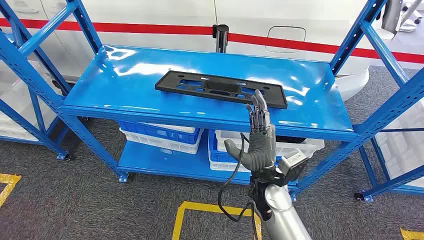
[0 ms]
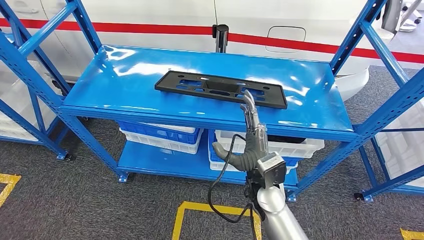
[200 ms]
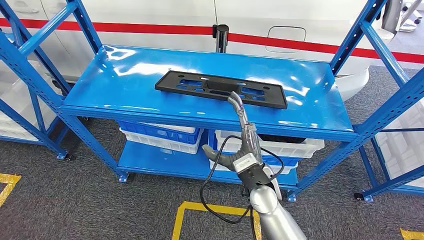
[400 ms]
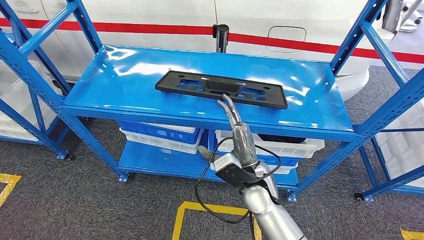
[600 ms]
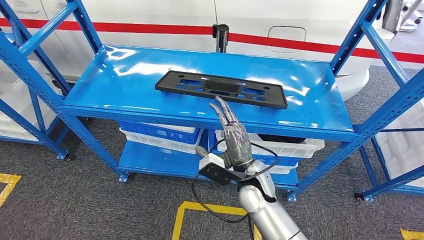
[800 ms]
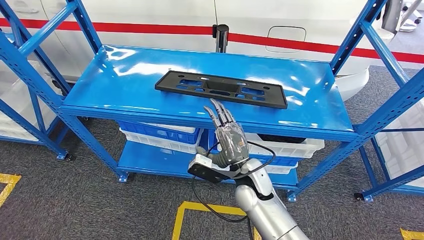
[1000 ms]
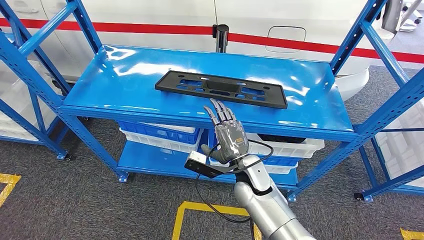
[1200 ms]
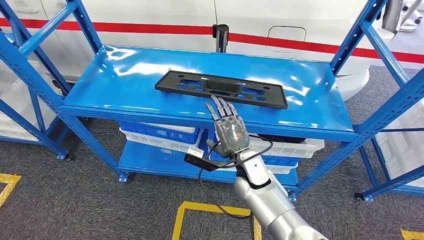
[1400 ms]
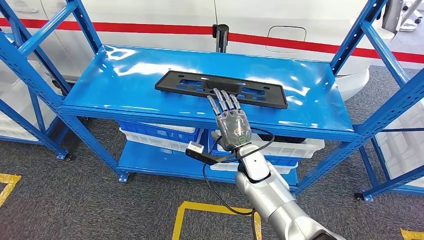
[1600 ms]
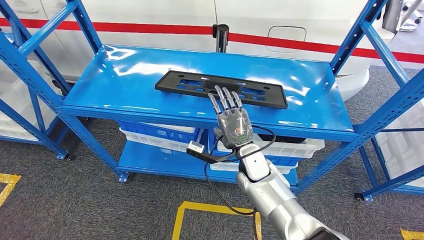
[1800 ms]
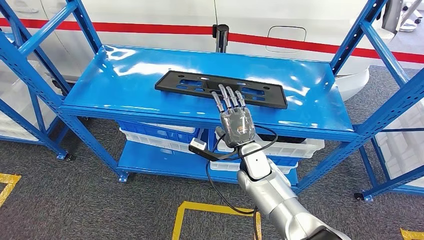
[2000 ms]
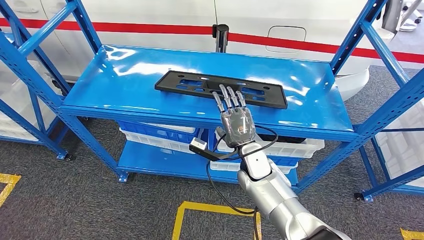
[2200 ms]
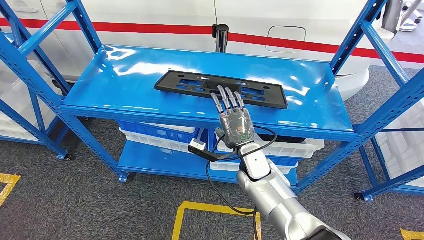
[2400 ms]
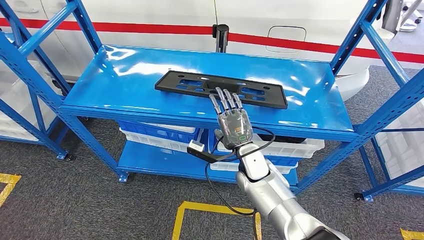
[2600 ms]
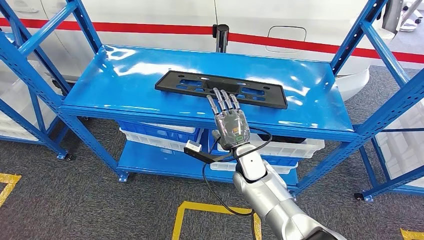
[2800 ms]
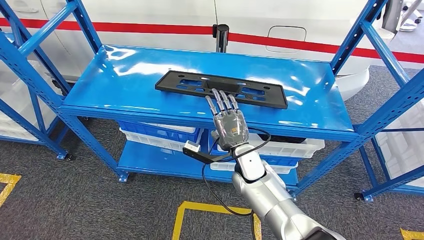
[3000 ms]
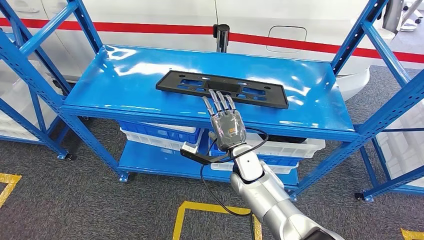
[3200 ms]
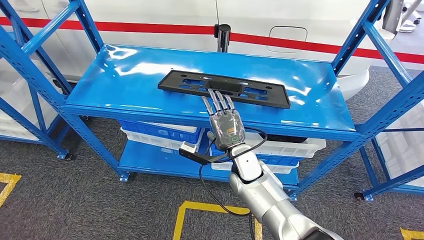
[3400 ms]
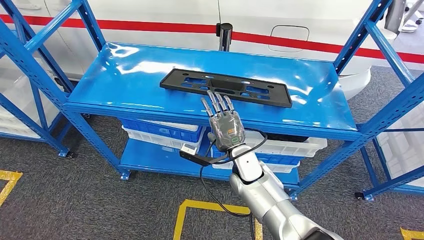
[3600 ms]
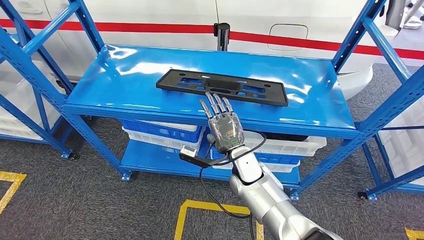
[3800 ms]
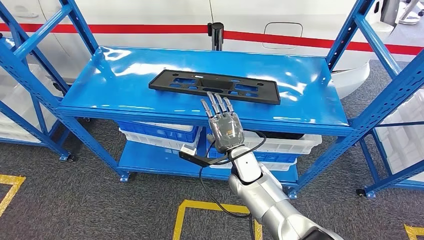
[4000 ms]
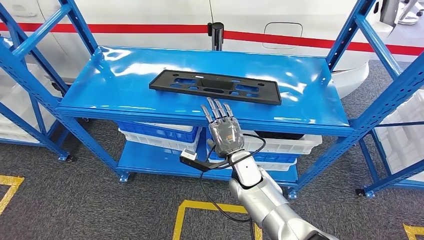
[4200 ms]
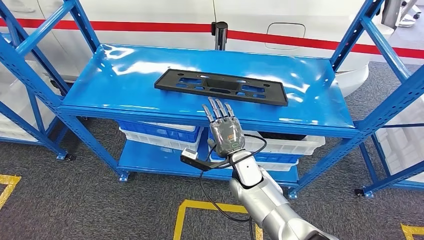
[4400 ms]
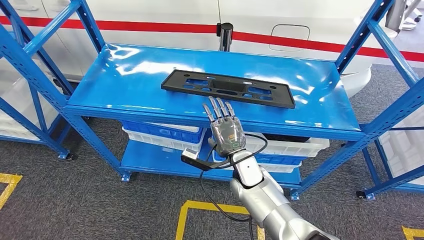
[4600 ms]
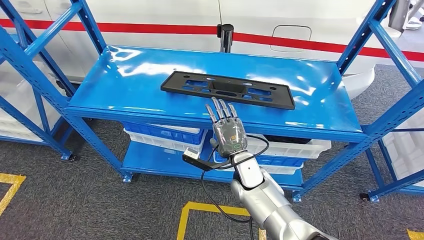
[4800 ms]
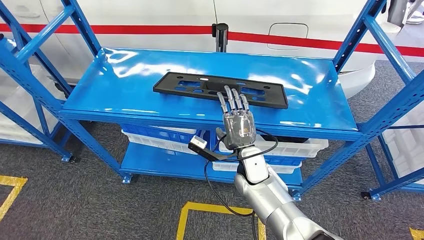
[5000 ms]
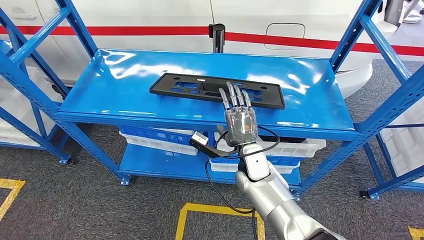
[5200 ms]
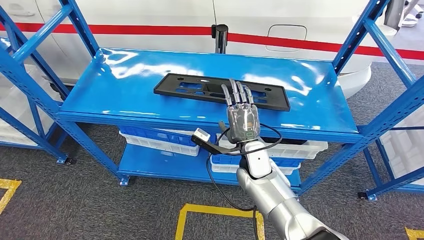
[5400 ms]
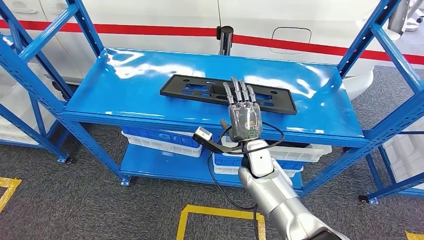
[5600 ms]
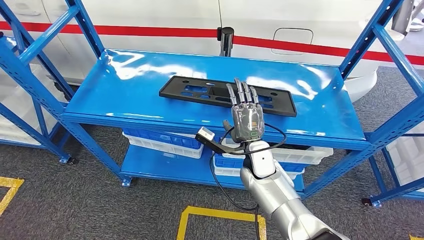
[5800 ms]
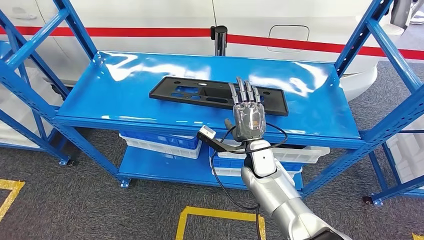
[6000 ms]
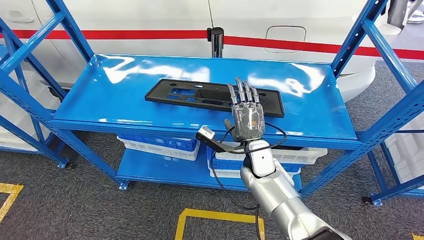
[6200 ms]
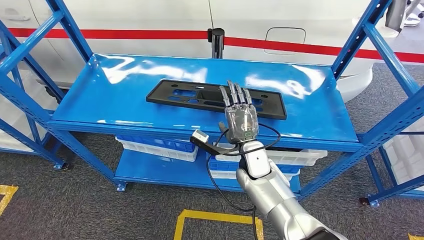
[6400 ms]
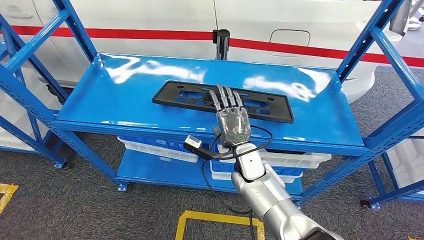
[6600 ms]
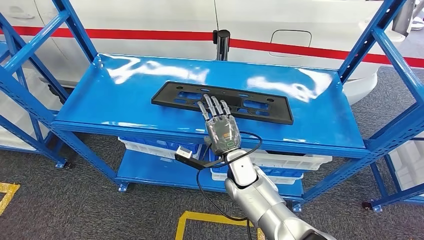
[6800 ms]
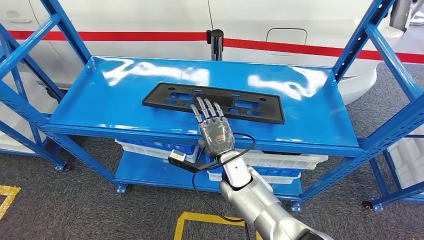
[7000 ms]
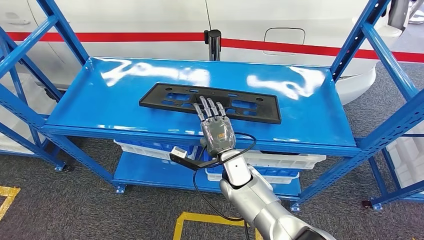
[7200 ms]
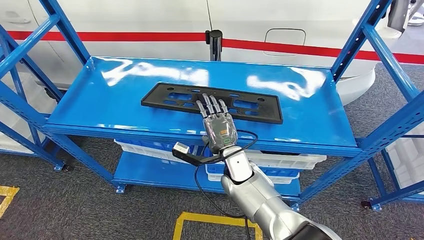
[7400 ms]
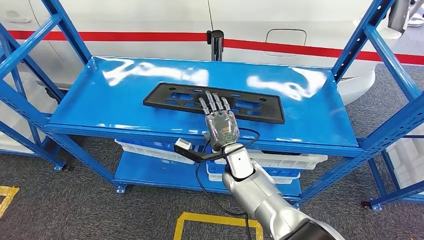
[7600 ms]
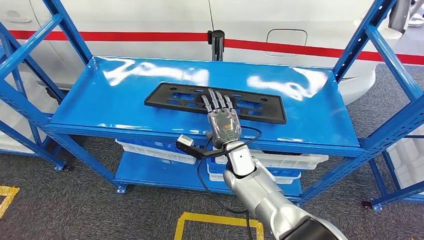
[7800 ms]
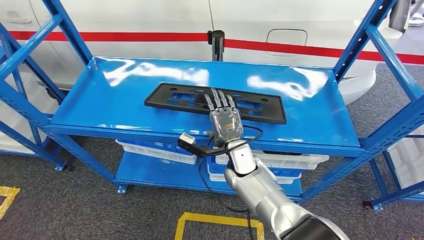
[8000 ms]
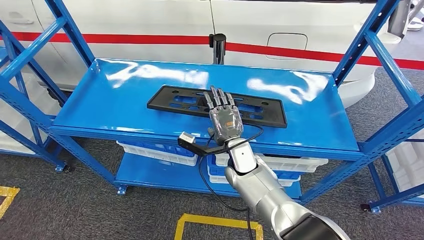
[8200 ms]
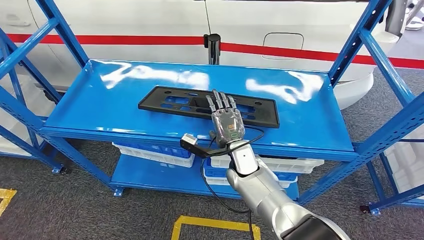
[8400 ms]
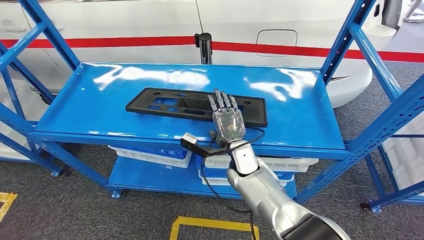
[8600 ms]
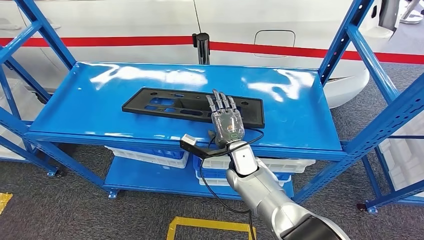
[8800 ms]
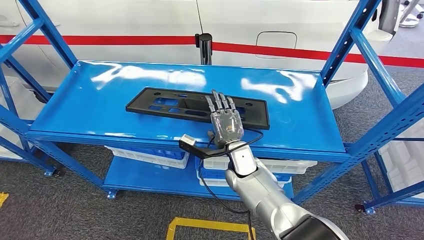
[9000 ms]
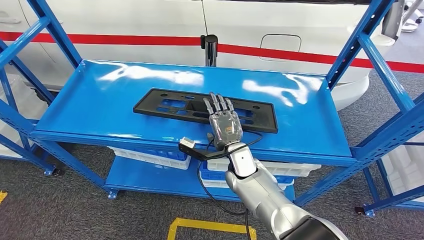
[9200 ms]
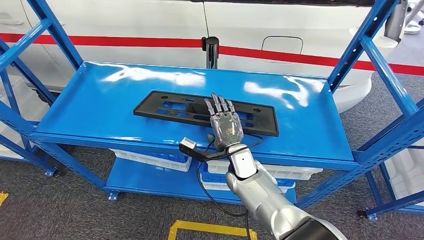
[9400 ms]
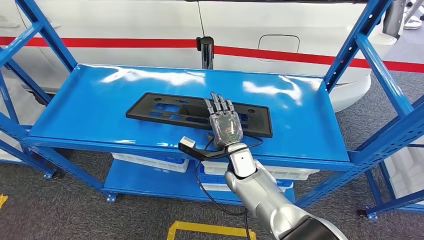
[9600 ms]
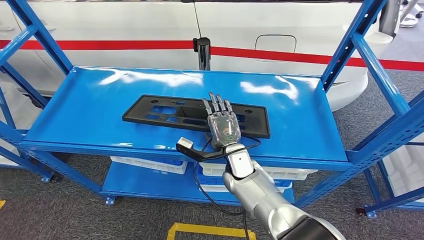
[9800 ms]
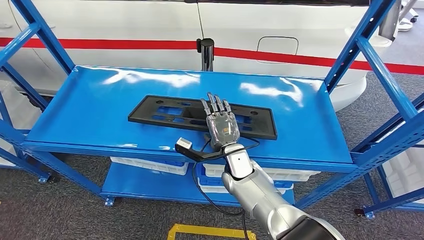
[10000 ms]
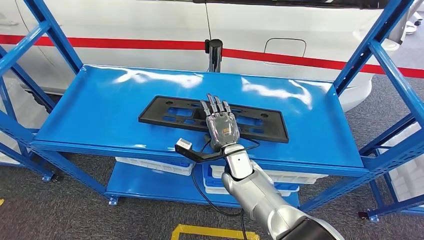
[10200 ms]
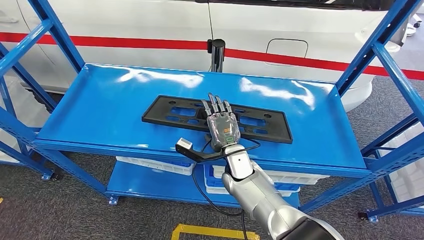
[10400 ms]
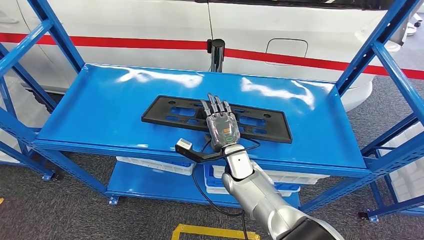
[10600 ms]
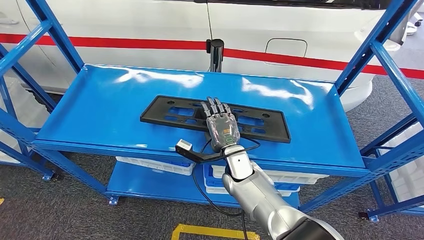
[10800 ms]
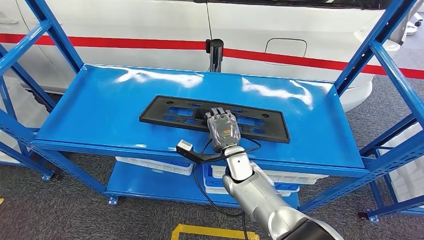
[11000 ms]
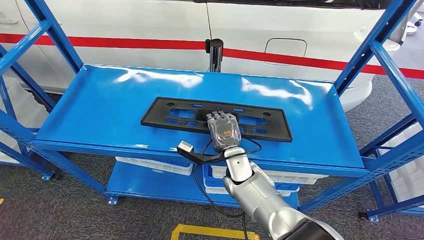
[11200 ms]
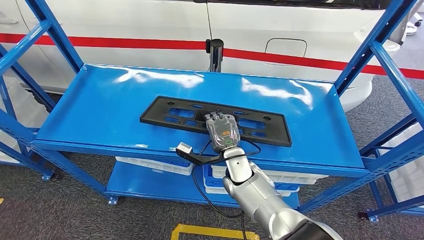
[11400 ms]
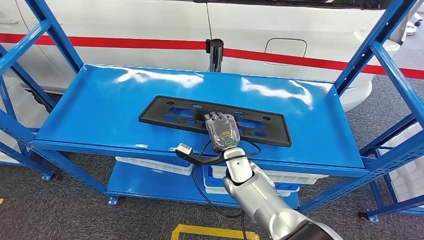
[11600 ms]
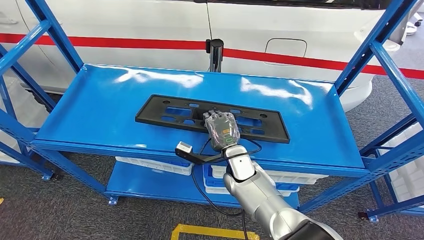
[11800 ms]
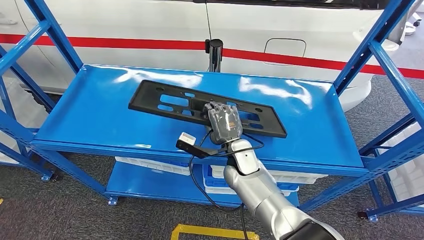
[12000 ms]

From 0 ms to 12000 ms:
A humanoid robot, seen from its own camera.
From 1600 ms to 3000 ms: The hands stay close to where they were, moving slightly.
From 10400 ms to 12000 ms: There are only small adjustments of the hands.

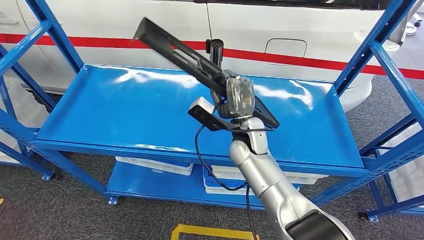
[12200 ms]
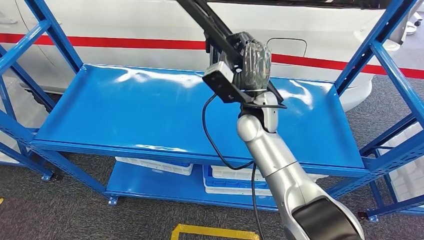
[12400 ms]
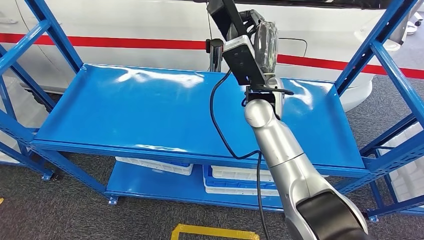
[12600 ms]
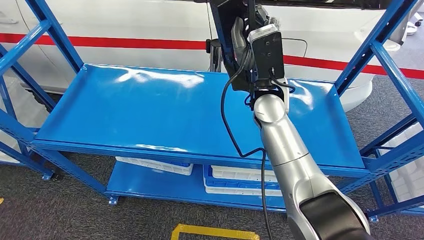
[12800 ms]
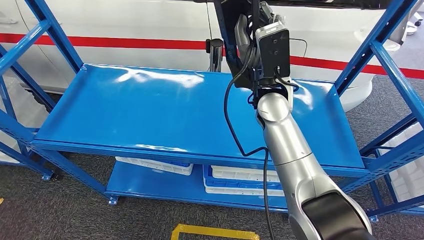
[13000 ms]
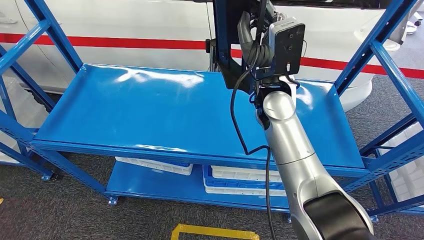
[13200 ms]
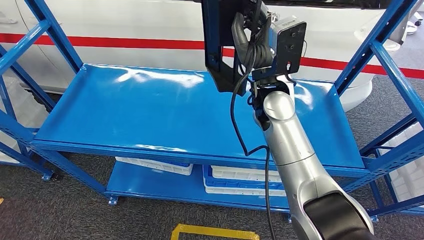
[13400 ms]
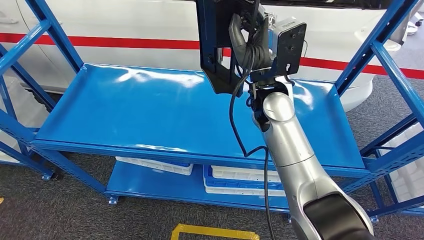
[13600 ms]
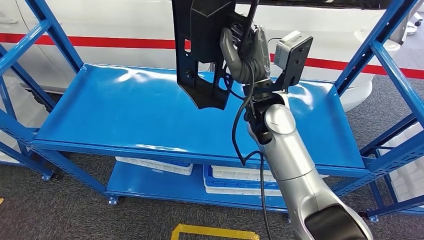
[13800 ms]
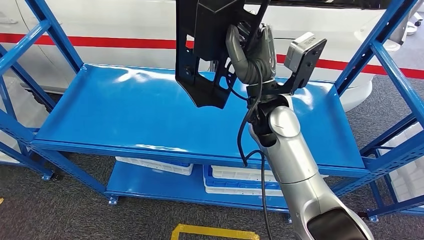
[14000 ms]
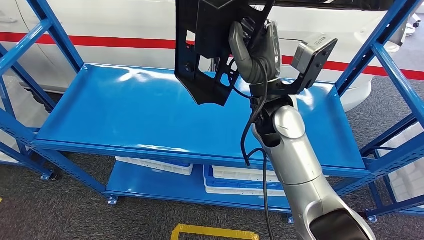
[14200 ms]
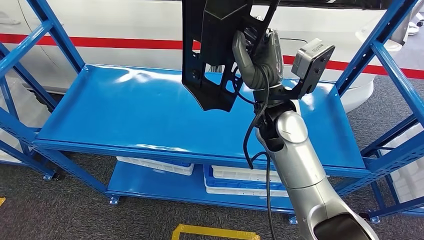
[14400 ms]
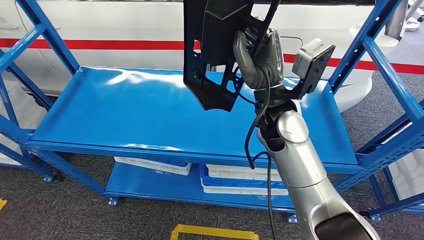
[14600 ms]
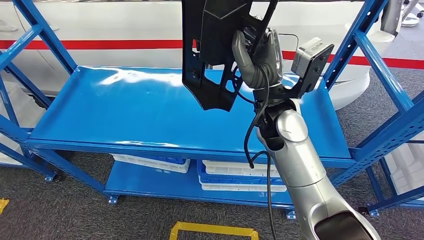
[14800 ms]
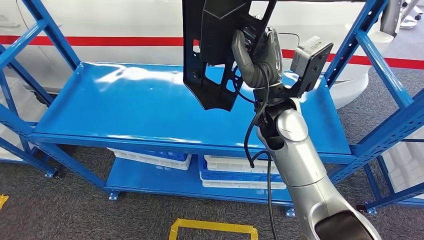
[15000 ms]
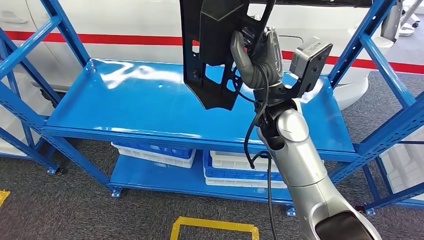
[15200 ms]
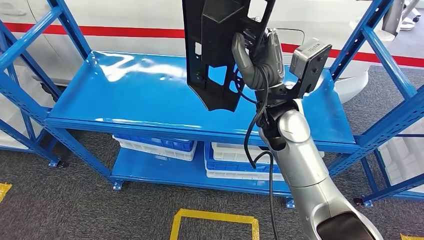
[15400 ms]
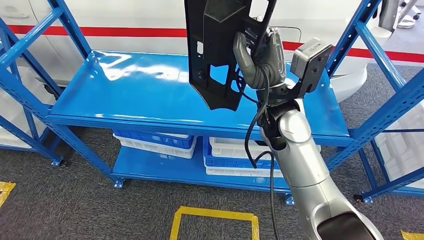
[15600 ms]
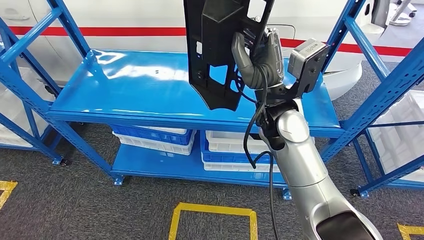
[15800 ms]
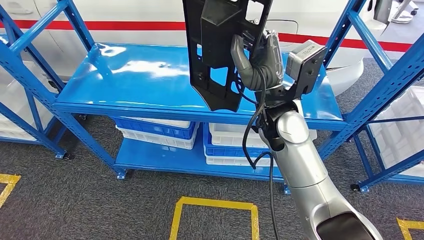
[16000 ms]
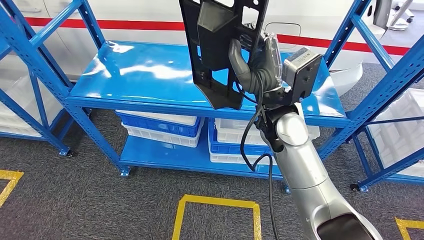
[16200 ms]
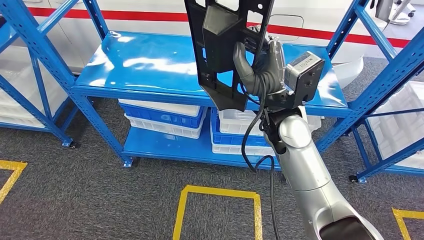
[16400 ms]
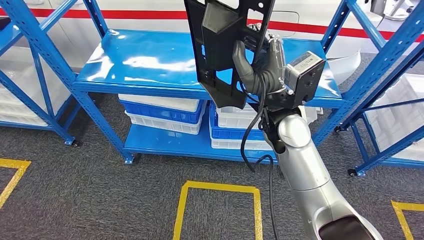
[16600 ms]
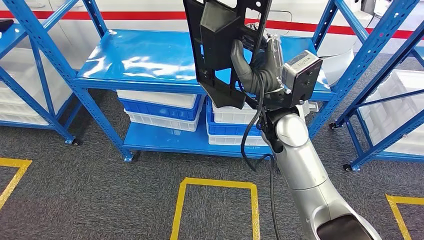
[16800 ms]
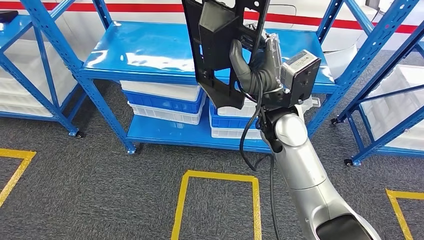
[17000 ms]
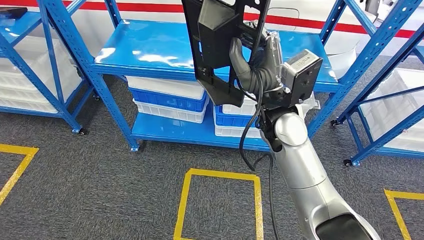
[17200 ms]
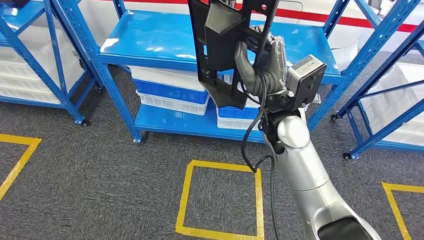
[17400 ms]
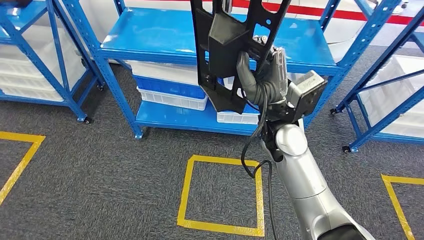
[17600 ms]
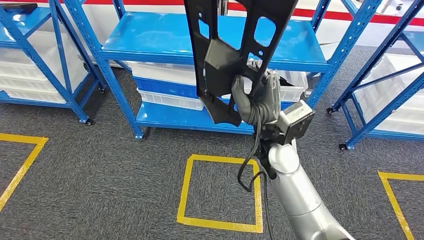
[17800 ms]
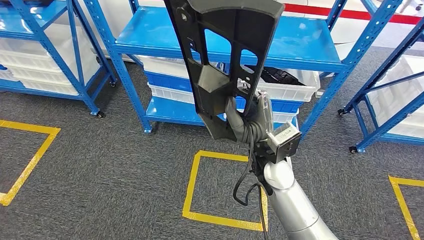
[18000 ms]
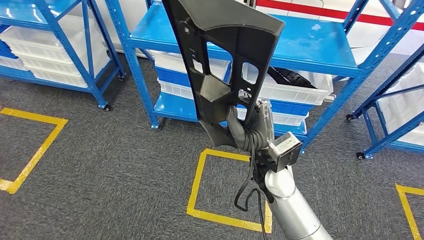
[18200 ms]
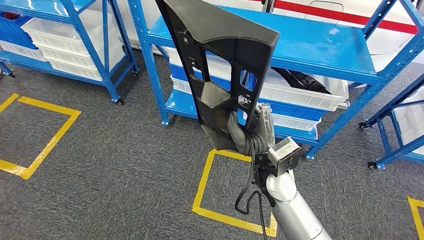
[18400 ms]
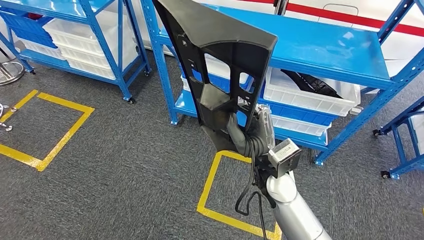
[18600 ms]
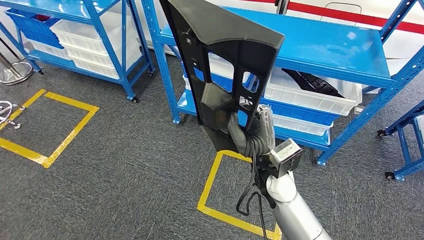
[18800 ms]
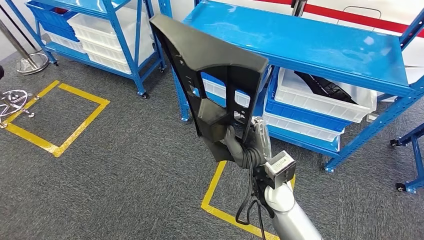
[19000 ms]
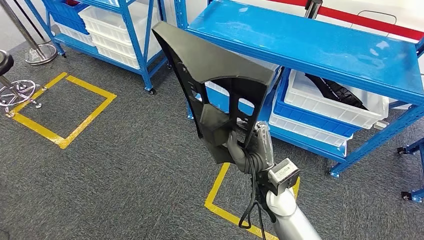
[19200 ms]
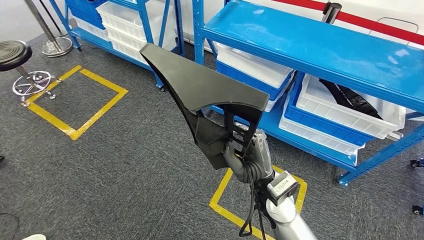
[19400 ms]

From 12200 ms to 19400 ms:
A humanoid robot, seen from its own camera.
Step, from 12200 ms to 15800 ms: Pick up the large material from the shelf.
